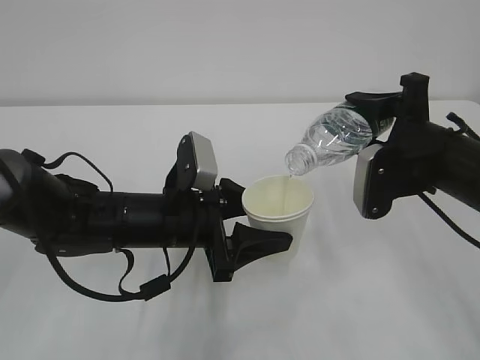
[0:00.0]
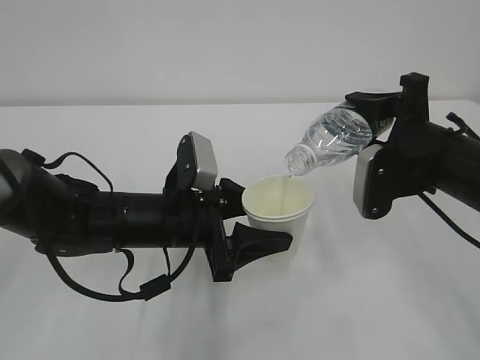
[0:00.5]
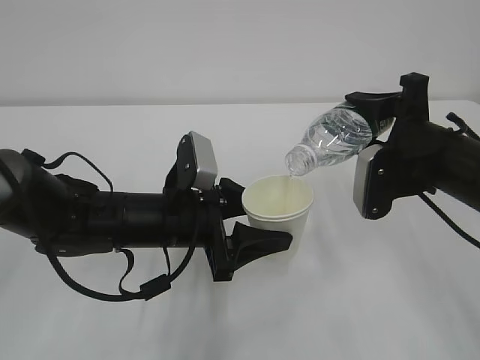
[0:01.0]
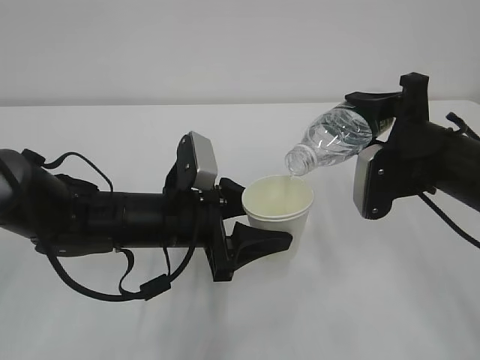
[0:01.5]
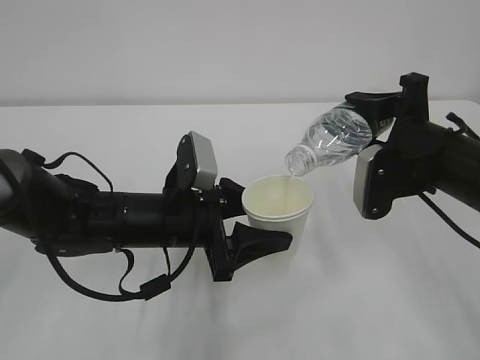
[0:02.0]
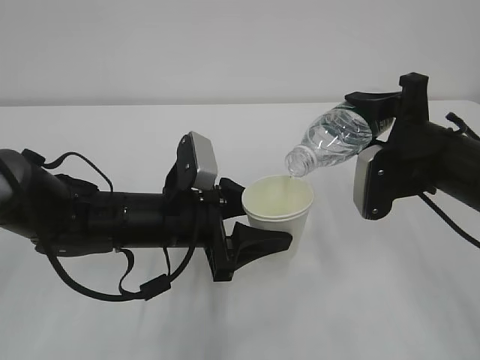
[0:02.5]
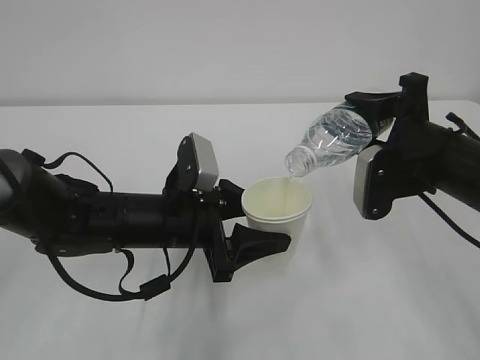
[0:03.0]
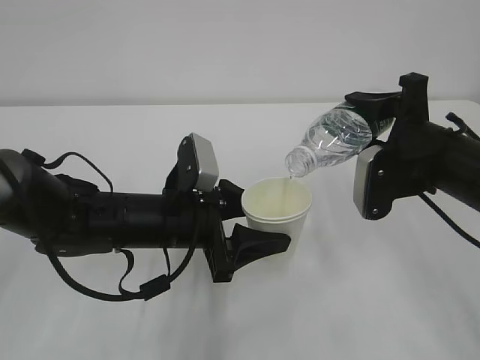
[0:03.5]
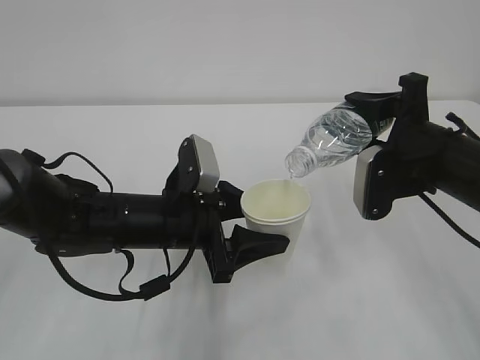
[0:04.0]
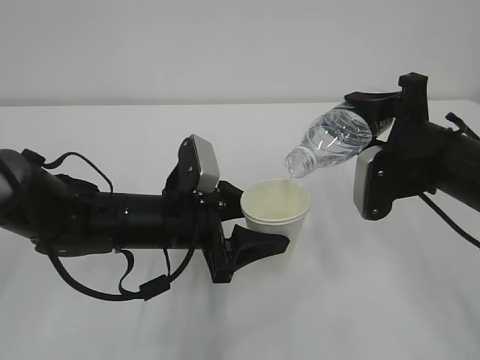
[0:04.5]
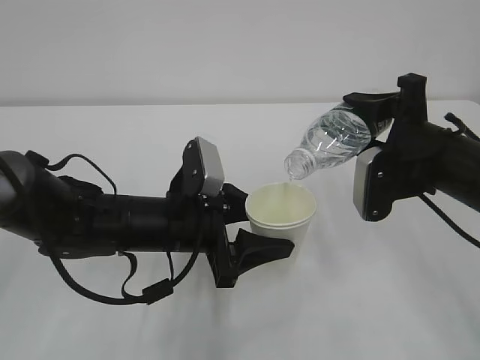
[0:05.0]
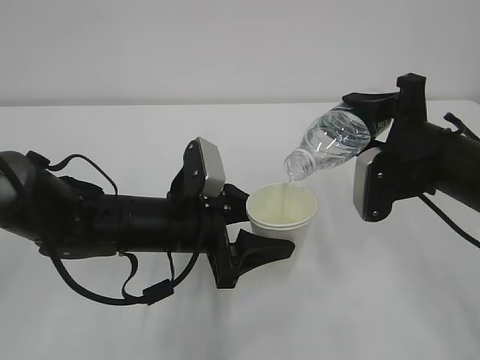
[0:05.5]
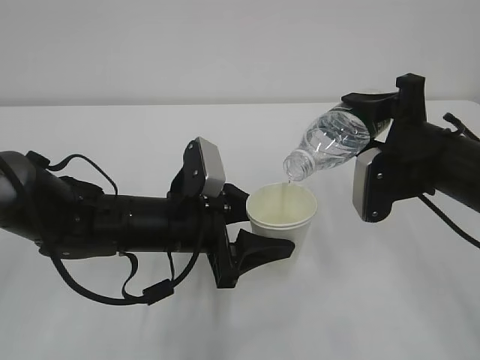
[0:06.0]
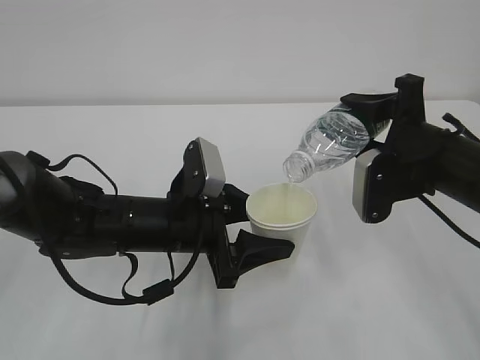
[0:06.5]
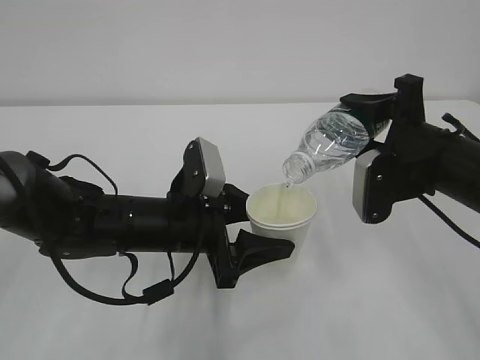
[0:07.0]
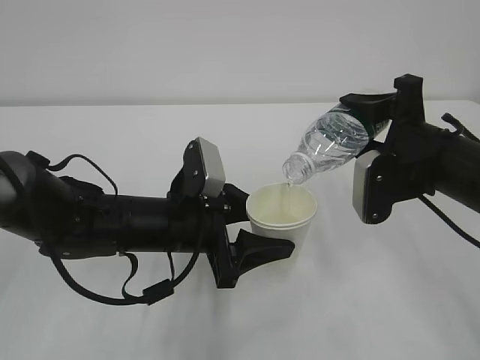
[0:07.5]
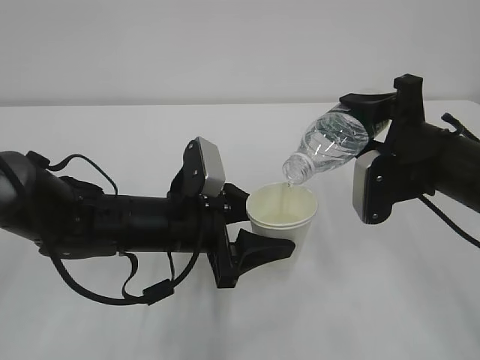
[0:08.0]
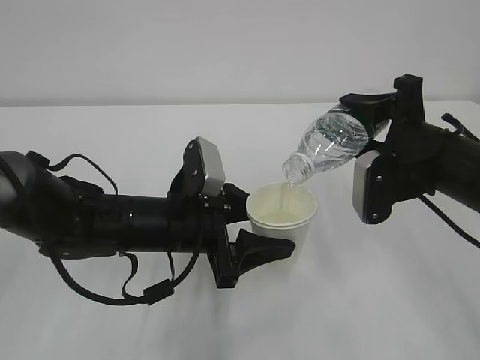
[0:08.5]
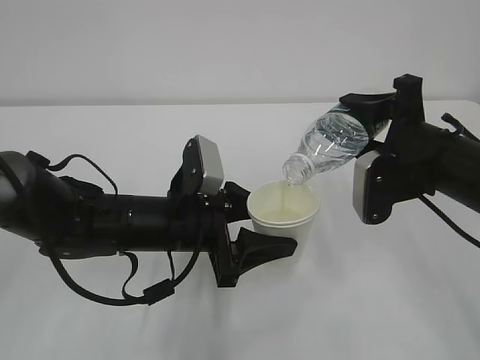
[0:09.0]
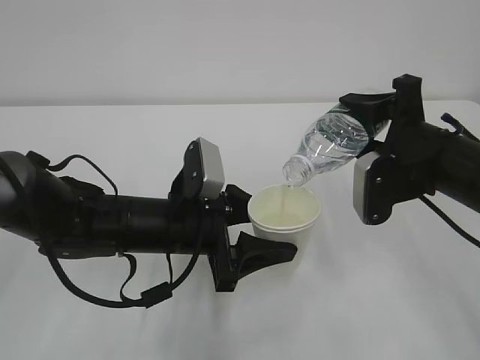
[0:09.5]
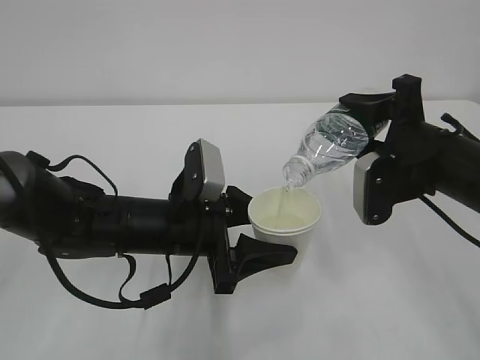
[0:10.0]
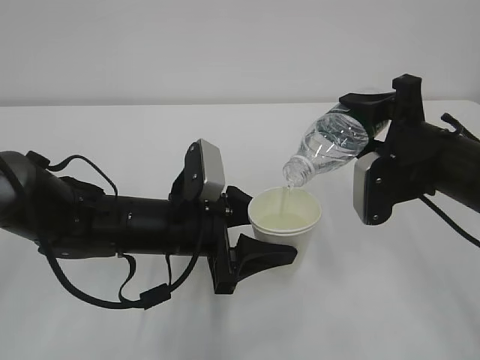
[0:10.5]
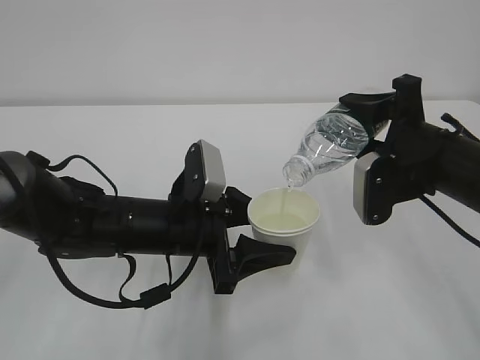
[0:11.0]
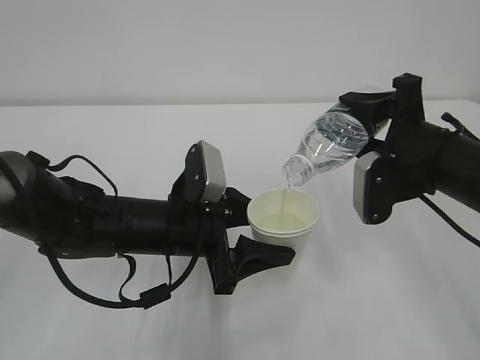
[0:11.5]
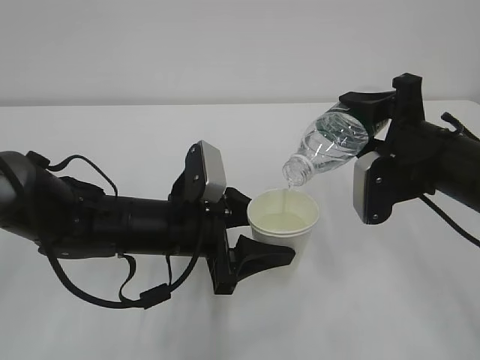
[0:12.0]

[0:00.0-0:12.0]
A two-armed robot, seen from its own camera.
0:00.0 to 0:08.0: Neither gripper changes place.
0:08.0 to 0:12.0: Neither gripper changes place.

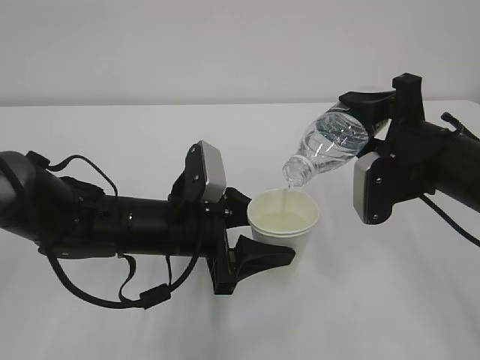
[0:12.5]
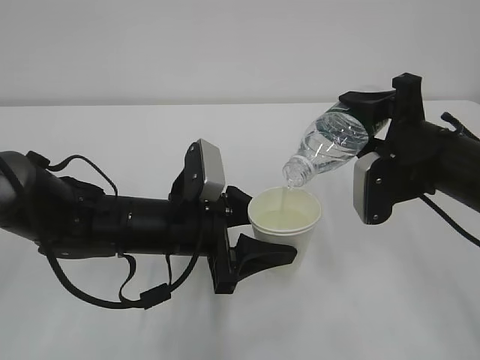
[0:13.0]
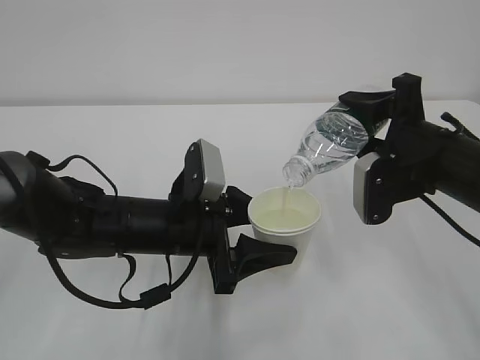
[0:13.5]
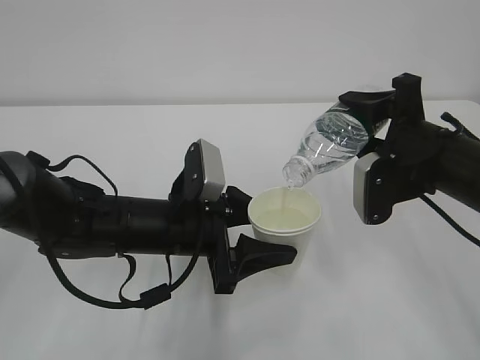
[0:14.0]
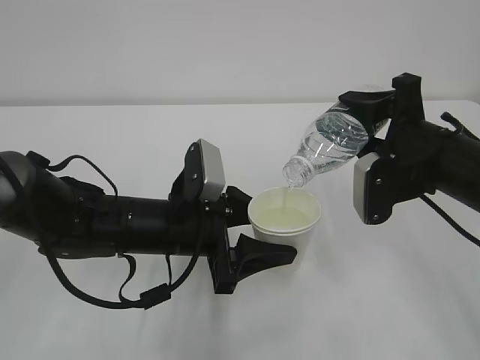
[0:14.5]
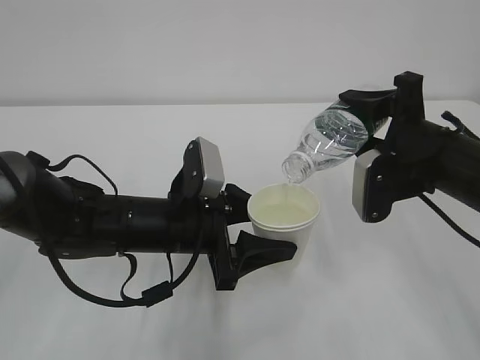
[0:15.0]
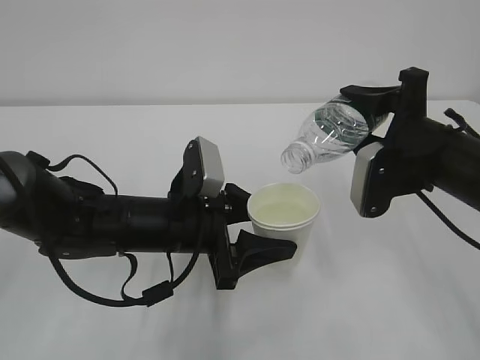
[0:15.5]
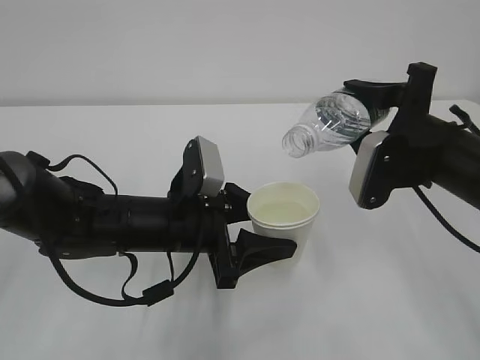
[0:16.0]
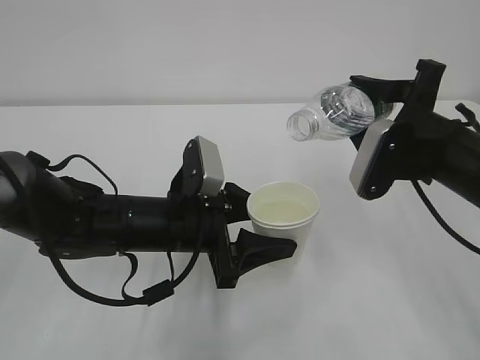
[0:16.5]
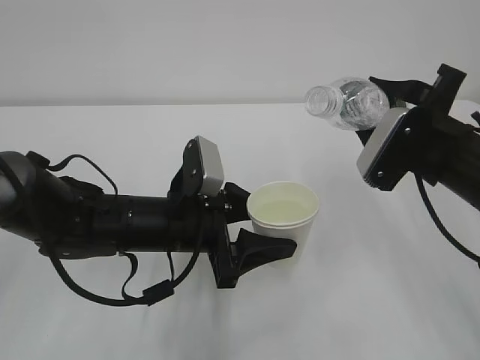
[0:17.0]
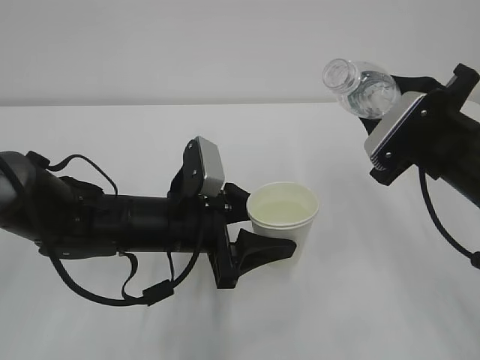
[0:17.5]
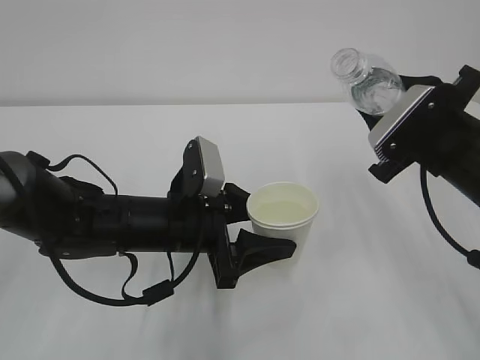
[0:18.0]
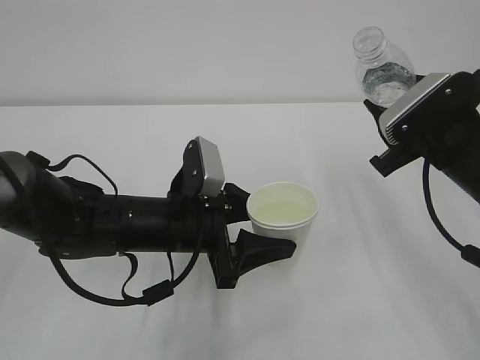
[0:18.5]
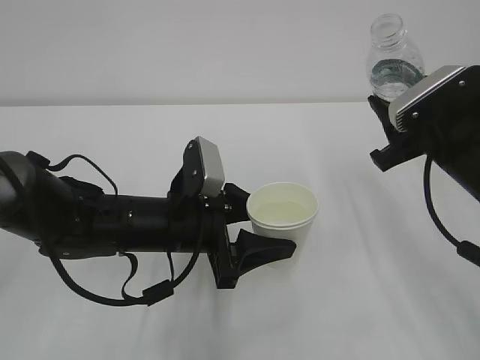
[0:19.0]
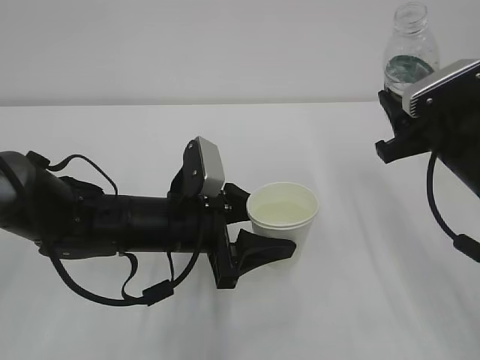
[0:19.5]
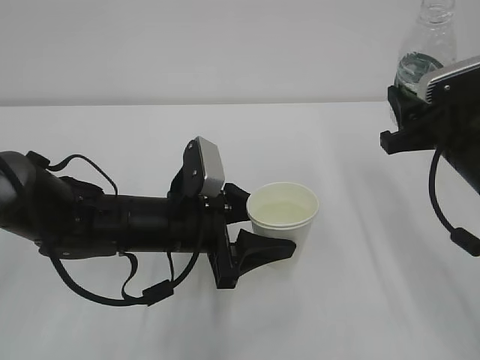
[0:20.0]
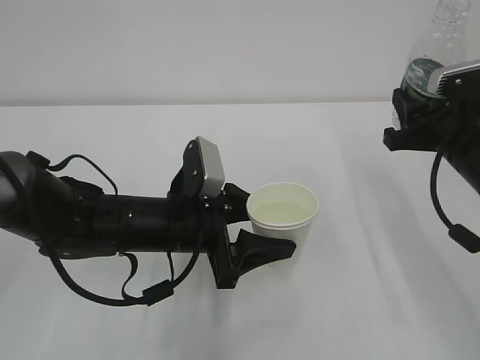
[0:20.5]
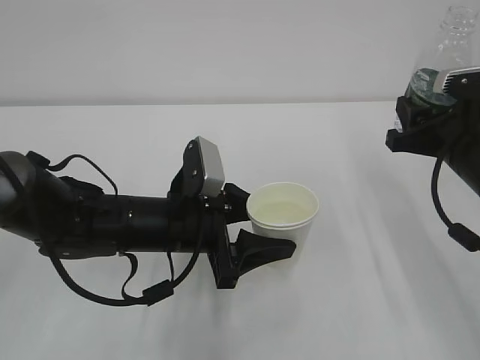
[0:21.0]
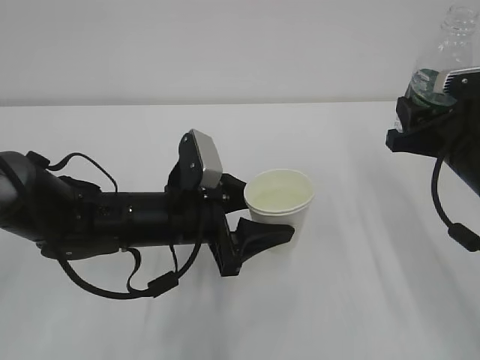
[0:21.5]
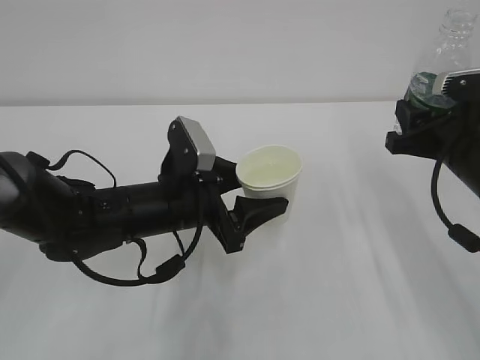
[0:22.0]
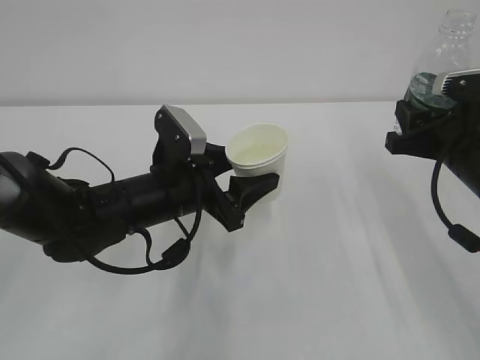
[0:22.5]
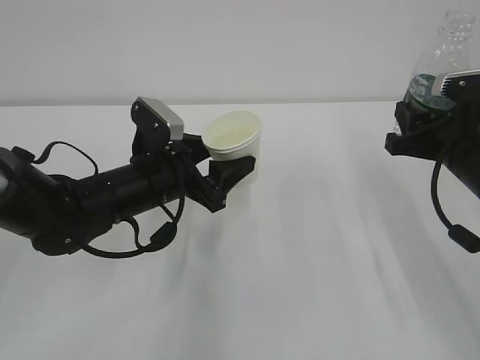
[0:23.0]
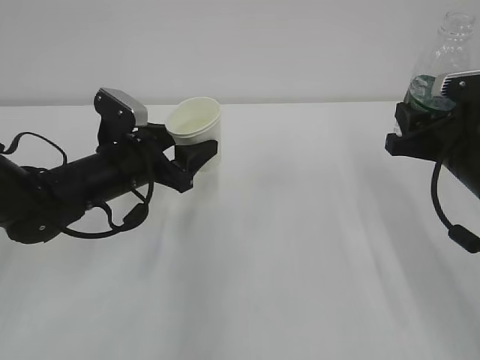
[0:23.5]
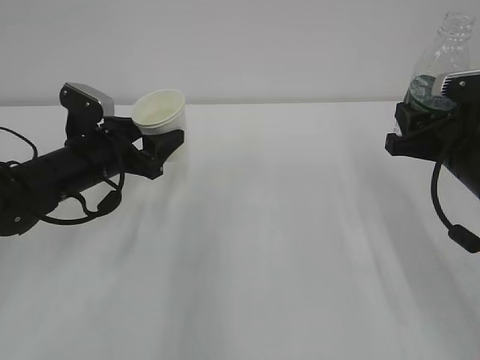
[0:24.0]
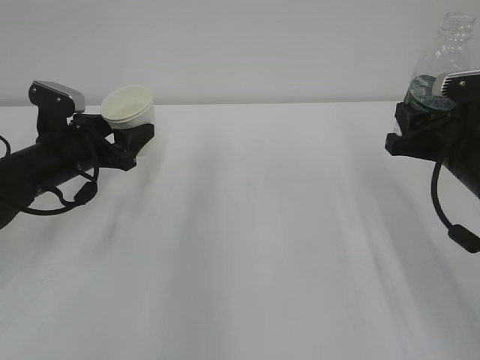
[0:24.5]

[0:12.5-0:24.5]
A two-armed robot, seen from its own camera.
0:12.5 to 0:14.5: Both grippers stay about where they are.
0:14.5 to 0:16.5: The grippers stay close to where they were, moving slightly.
0:22.5 to 0:24.5: The left gripper moves to the left and forward, approximately 15 cm.

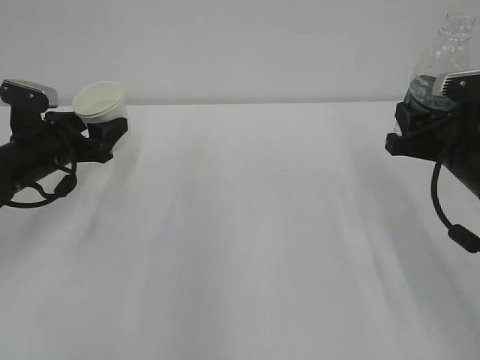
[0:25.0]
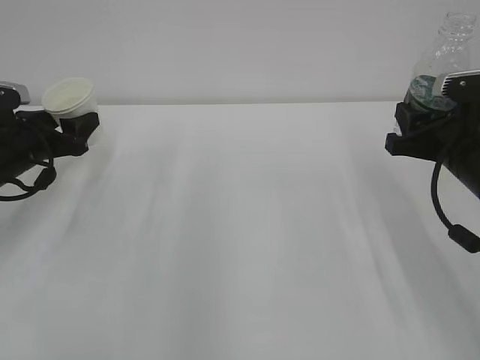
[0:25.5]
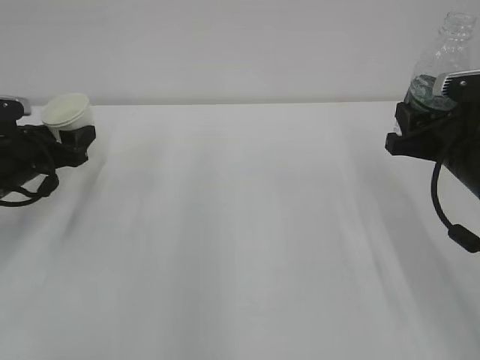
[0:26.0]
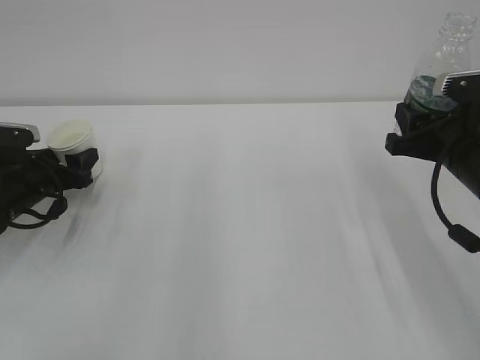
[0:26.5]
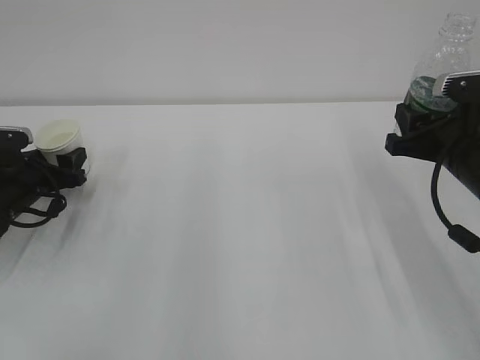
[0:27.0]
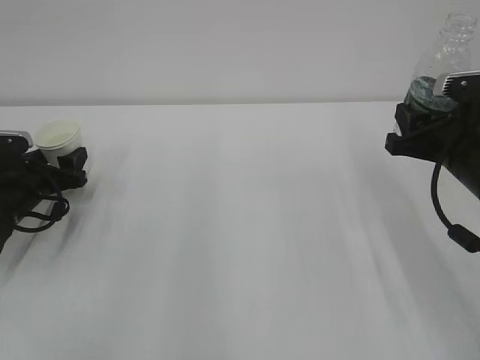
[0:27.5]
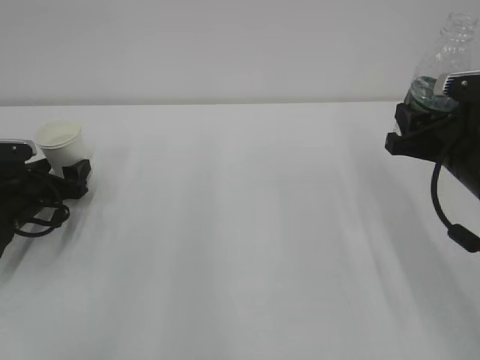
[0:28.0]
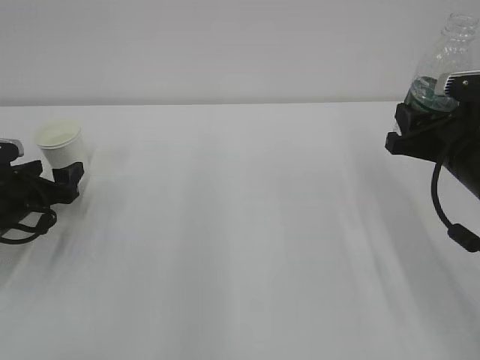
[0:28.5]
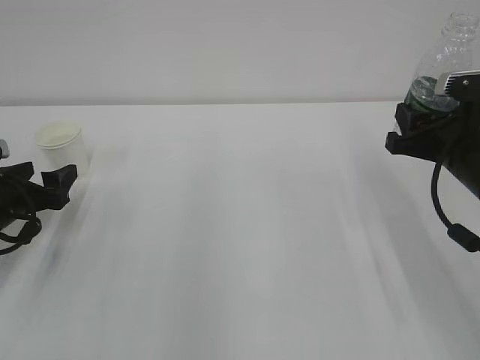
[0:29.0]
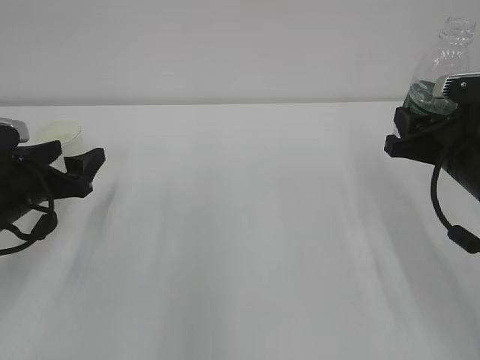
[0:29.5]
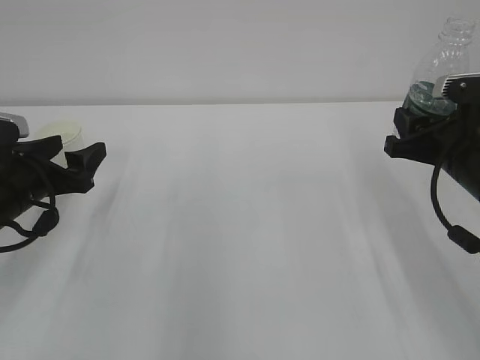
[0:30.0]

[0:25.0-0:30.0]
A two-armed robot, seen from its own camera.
0:25.0 to 0:27.5: The left gripper heads downward and to the left, covering about 10 cm.
0:27.5 to 0:30.0: The left gripper goes roughly 10 cm upward, backward and to the right, and opens up.
